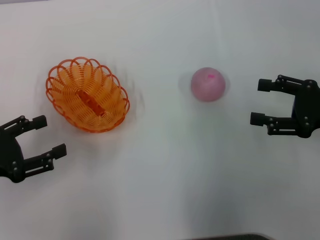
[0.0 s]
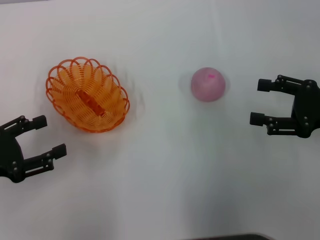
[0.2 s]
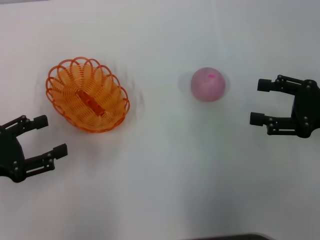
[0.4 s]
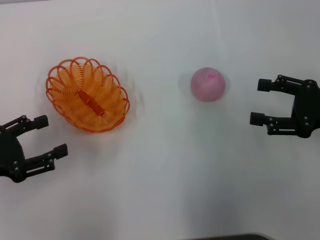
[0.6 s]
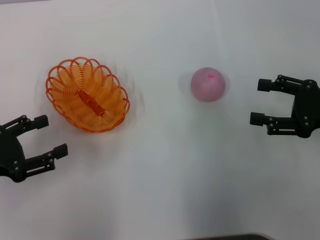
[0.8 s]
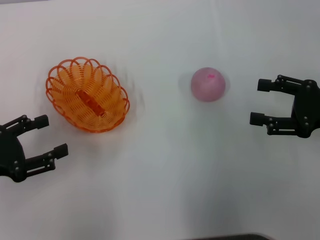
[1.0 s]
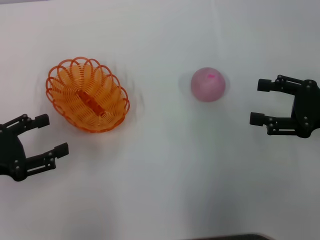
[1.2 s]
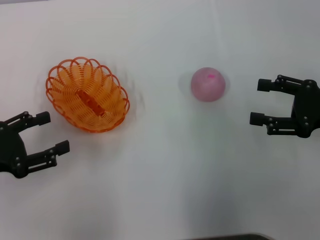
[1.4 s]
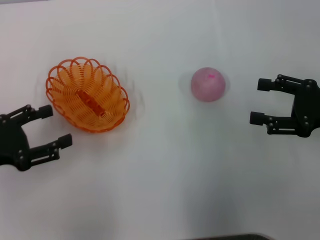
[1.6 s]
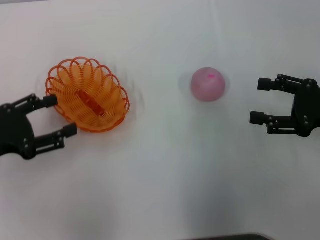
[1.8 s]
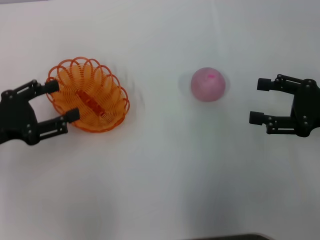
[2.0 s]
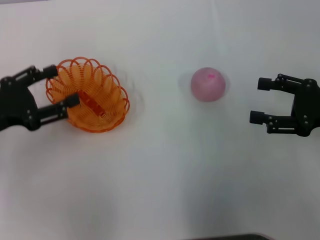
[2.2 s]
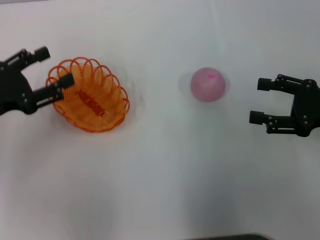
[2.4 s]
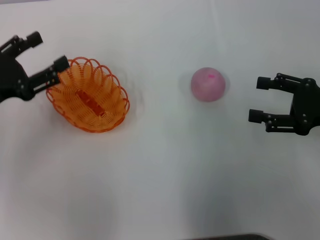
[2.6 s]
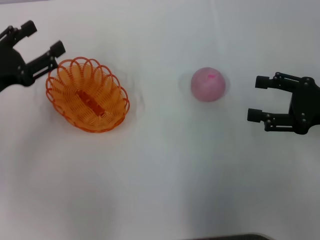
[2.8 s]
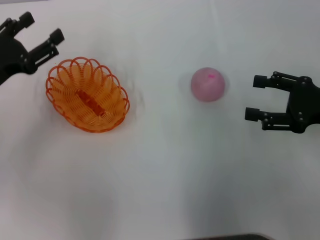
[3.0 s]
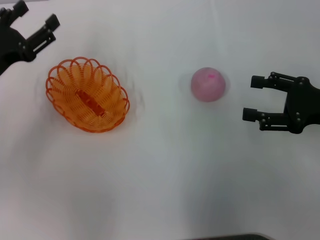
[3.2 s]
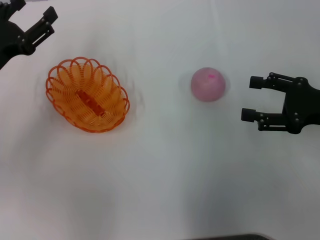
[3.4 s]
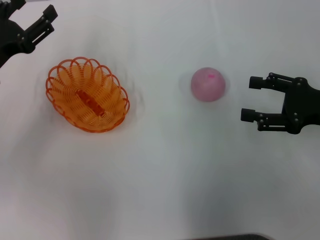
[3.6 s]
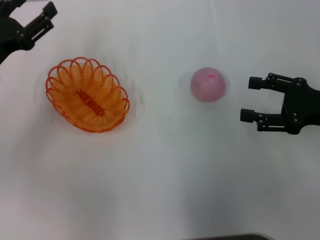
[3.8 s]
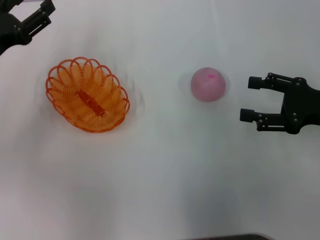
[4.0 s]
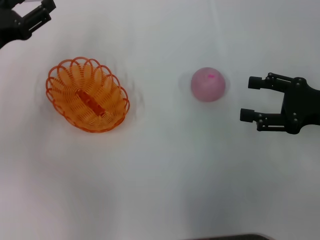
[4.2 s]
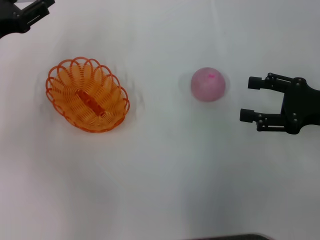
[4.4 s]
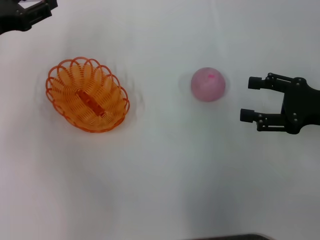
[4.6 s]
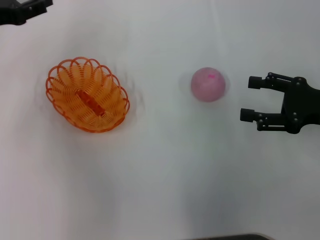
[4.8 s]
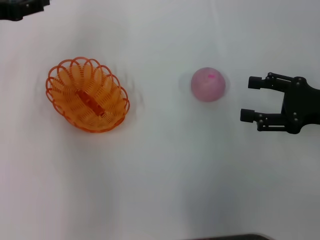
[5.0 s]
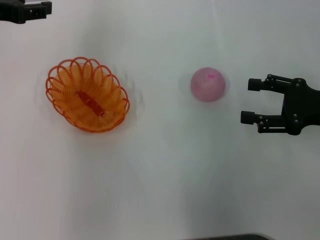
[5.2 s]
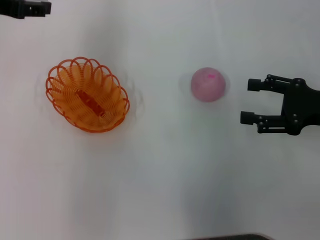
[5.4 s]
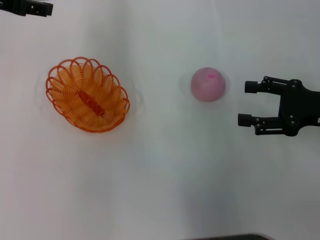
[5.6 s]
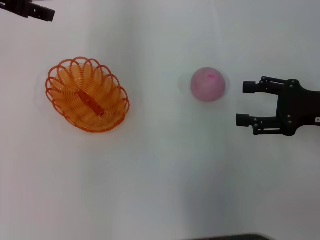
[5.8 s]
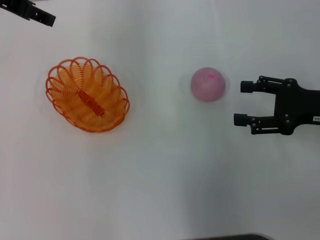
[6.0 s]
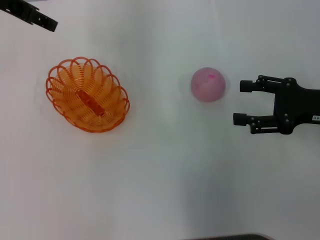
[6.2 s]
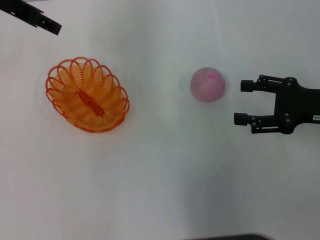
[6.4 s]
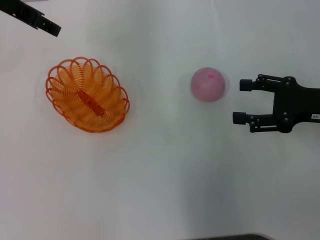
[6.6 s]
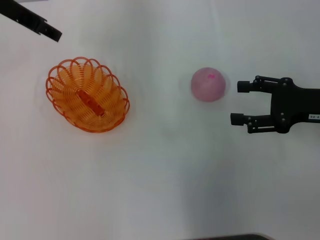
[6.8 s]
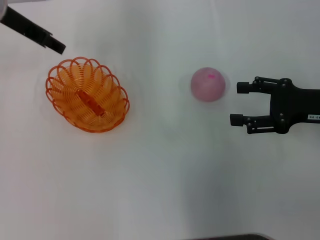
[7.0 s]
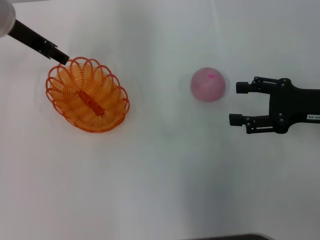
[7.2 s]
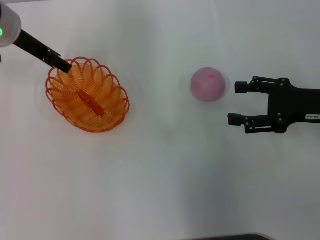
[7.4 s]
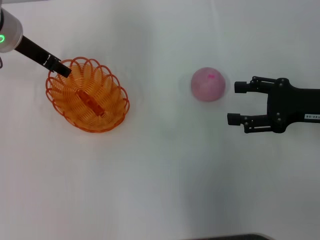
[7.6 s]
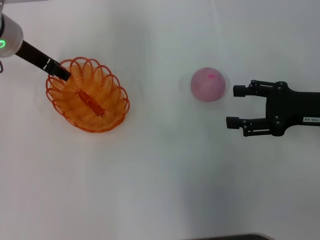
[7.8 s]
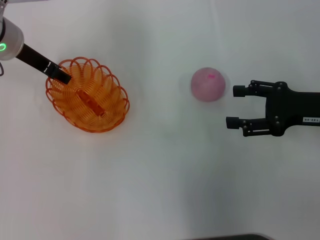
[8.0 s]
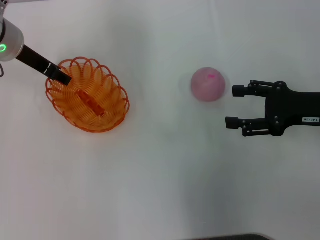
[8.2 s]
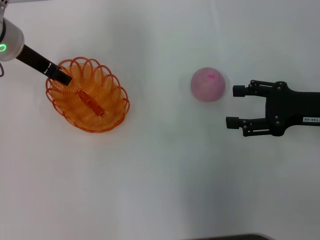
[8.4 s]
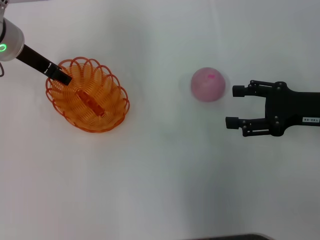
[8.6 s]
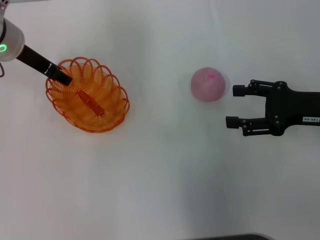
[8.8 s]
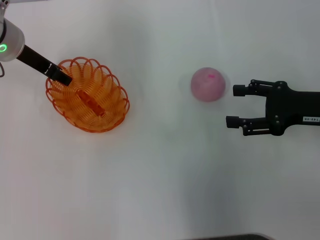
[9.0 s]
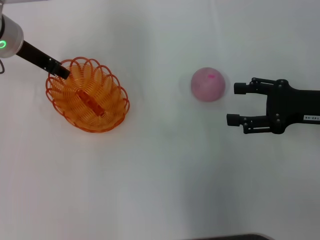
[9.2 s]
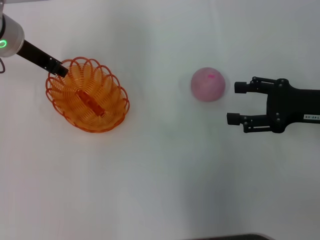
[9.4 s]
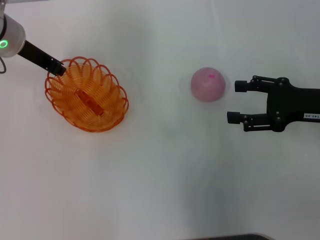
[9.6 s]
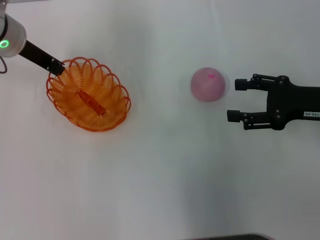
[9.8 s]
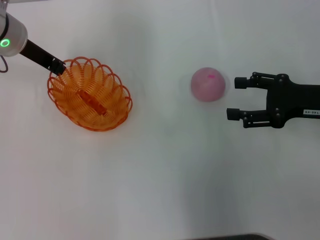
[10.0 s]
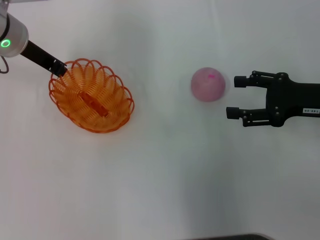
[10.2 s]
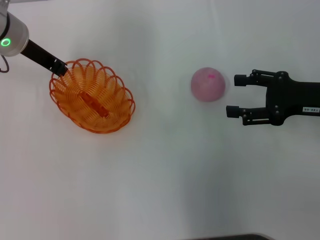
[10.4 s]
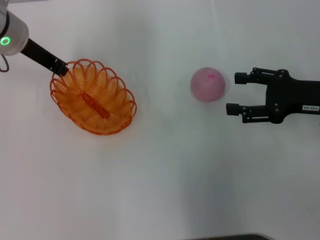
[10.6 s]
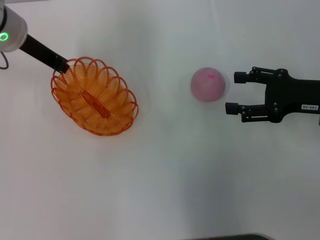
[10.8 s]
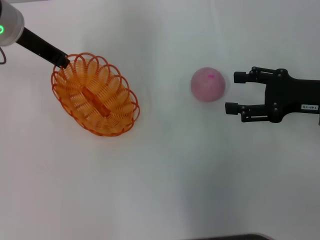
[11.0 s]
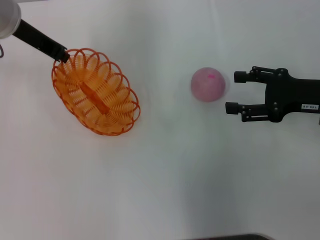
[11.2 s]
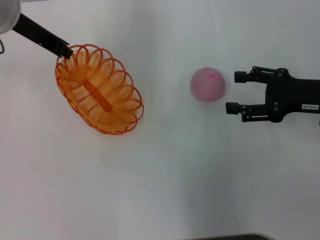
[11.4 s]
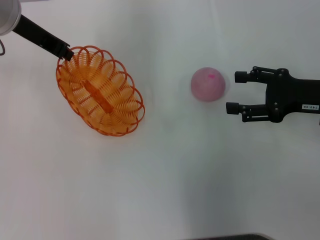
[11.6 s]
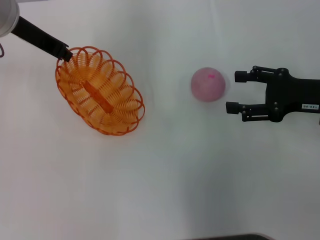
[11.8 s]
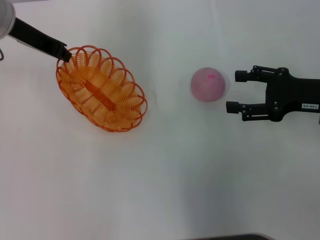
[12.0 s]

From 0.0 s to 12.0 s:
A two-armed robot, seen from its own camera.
Step, from 0.0 s to 11.8 s: Pick up the basket with the left gripper.
From 0.0 s to 1.6 s: There are only small adjustments of the grippers.
From 1.6 s to 3.0 s: The left gripper moves forward, approximately 5 cm.
From 3.0 s to 4.4 s: The left gripper ends up about 5 cm from where it was.
From 4.4 s to 6.0 s: The left gripper heads upward, forward and to the right, covering about 15 cm.
From 6.0 s to 7.6 s: The left gripper shifts about 10 cm downward.
From 7.6 s to 9.0 s: Neither gripper changes place.
From 9.0 s to 10.4 s: The left gripper closes.
From 10.4 s to 12.0 s: The grippers move only a little.

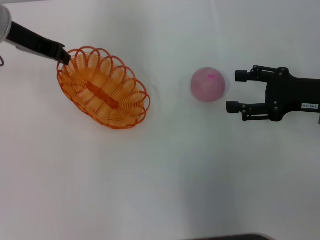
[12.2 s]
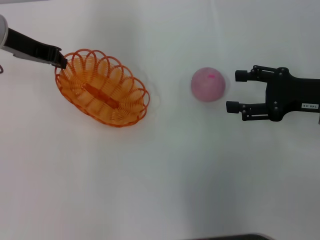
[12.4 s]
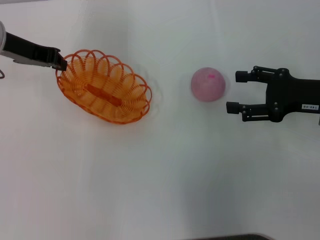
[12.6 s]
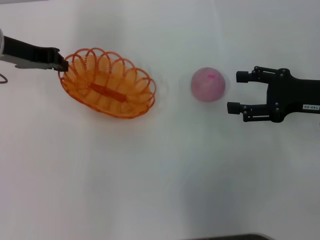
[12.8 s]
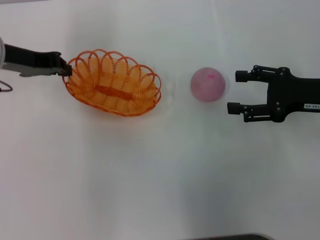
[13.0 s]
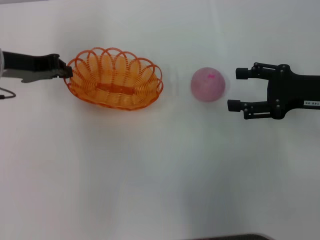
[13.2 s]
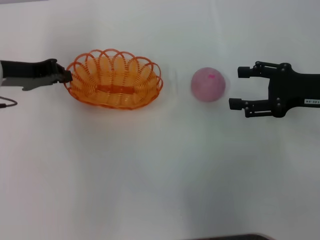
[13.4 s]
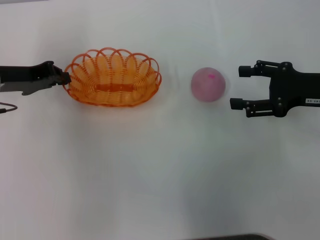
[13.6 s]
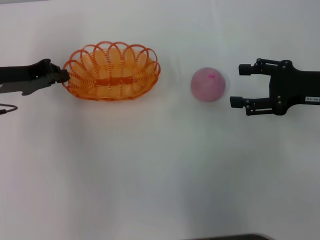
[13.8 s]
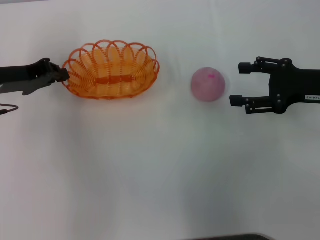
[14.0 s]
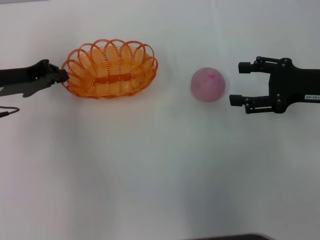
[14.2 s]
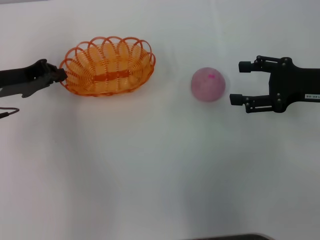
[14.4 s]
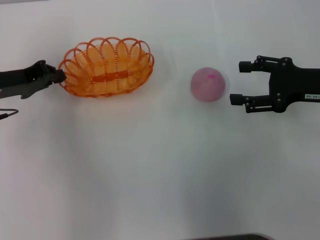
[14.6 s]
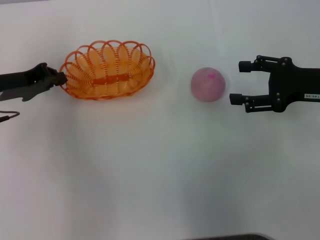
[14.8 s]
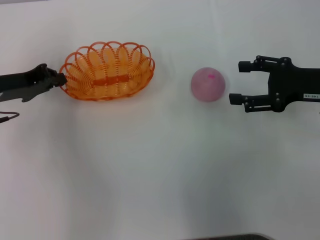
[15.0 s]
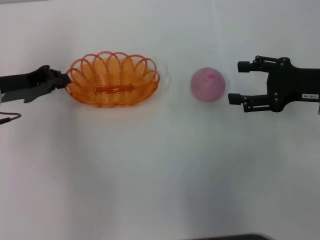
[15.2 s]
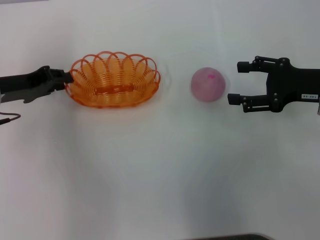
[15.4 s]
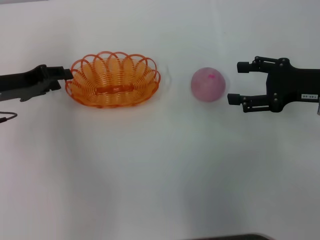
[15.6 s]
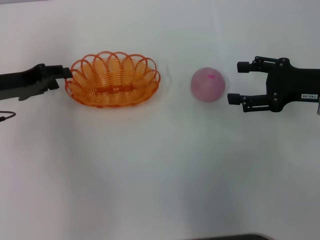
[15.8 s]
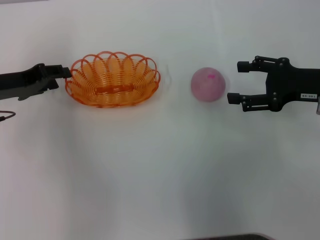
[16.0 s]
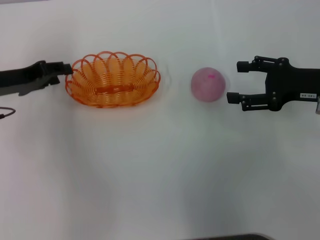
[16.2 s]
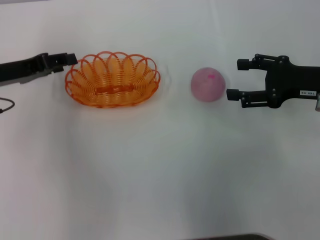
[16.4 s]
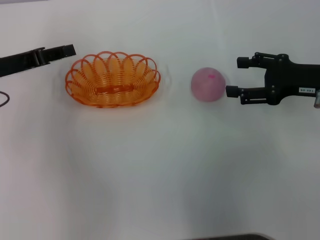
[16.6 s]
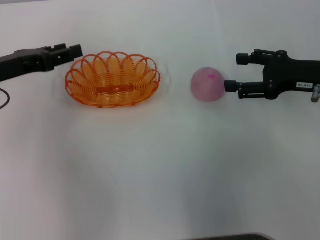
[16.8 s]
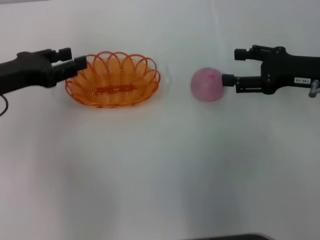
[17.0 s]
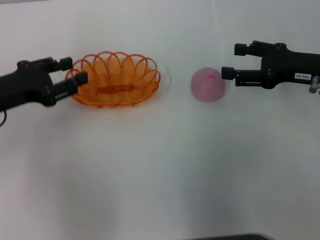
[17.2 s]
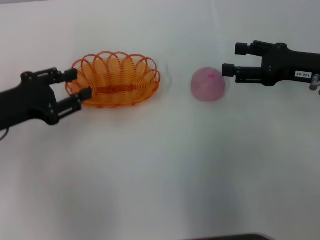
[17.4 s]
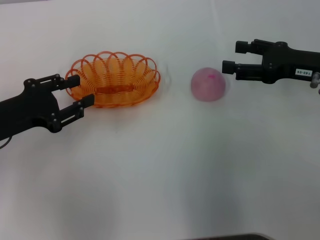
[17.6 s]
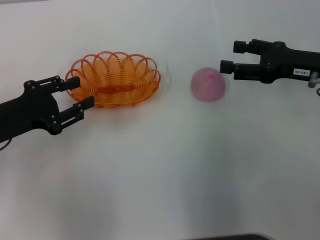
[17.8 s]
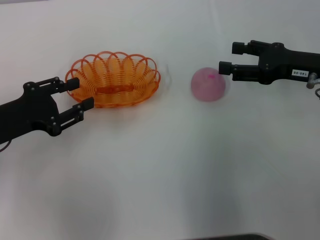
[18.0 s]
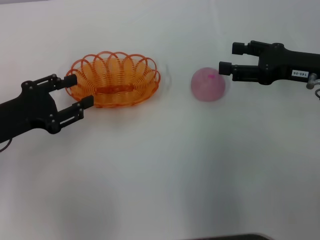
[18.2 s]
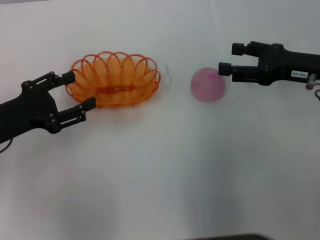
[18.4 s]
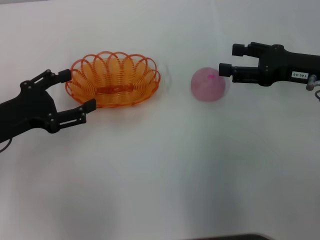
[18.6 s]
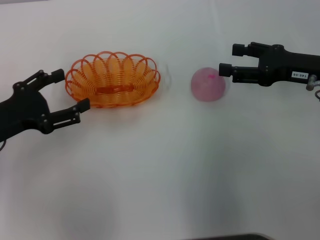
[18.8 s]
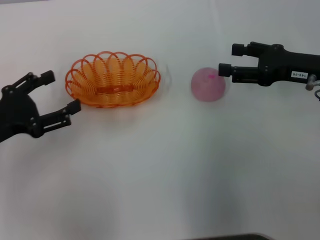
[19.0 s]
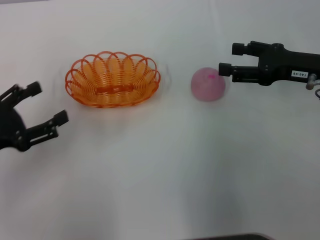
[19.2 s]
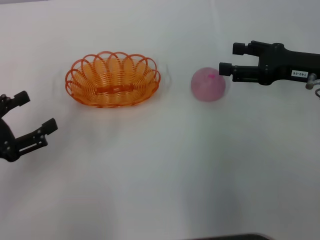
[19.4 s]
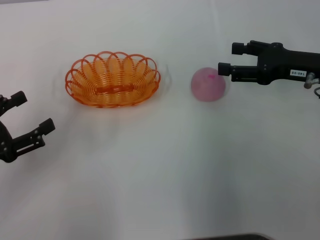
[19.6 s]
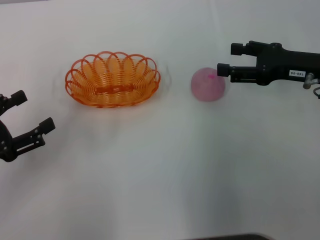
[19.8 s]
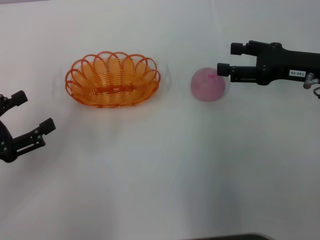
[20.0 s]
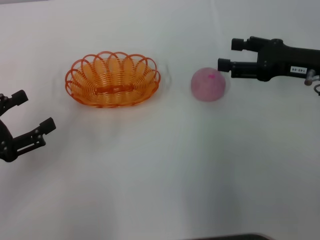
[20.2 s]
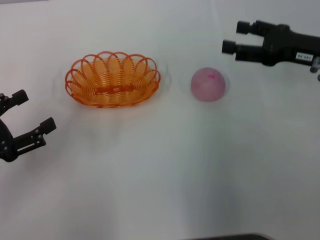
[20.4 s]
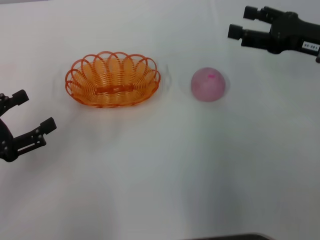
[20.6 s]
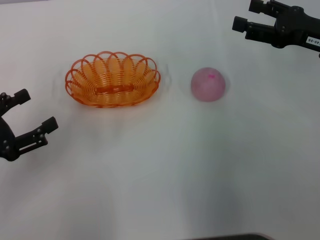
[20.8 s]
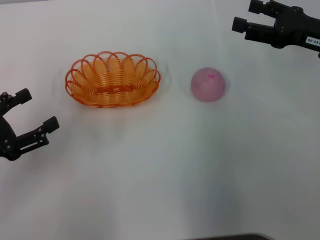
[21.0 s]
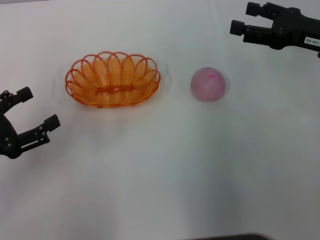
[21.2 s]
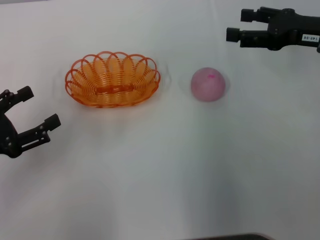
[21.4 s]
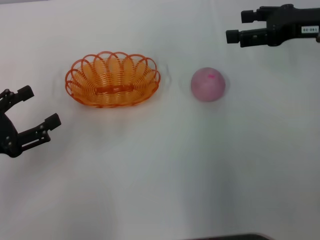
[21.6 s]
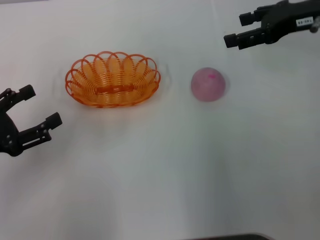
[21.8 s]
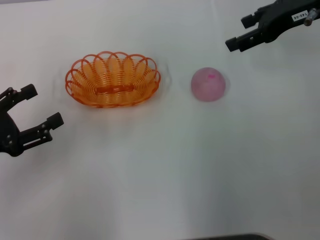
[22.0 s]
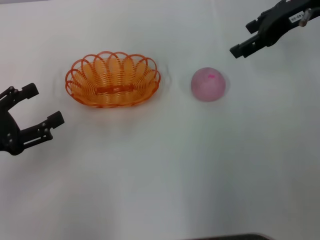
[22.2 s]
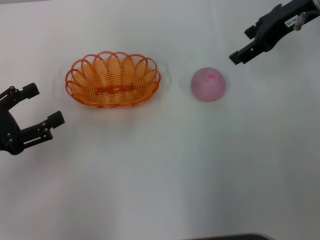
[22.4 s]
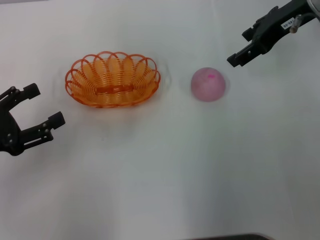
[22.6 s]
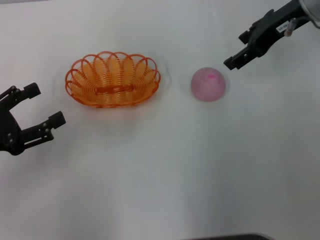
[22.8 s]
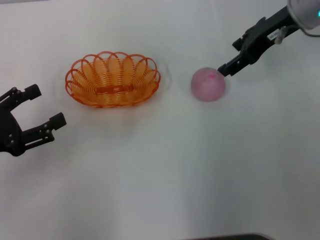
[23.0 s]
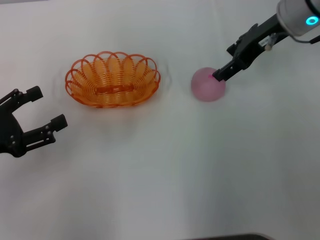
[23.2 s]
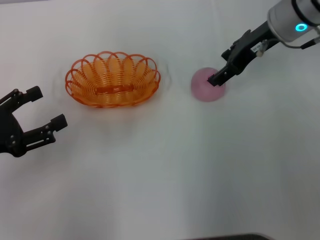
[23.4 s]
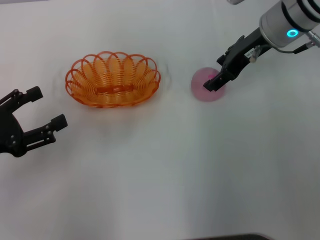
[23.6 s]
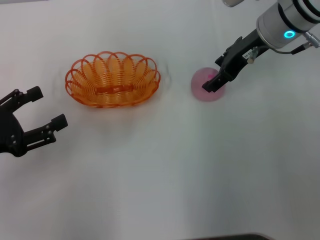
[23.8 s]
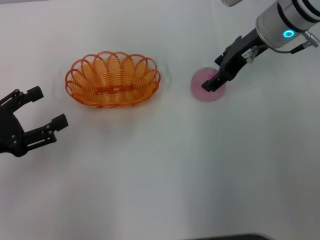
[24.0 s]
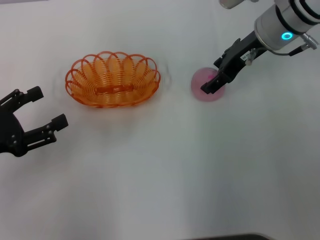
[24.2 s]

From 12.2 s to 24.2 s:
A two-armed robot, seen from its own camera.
Step, from 12.2 s to 19.0 s: Place the basket in the center of view with the left gripper.
From 12.2 s to 13.8 s: The left gripper heads downward and backward, covering roughly 10 cm.
From 13.8 s to 15.2 s: There are only small adjustments of the grippers.
From 15.2 s to 16.6 s: The left gripper opens its fingers.
From 16.6 s to 18.2 s: The left gripper travels backward by some 5 cm.
From 18.2 s to 19.8 s: The left gripper shifts some 5 cm backward, and opens up.
From 19.8 s to 21.2 s: The grippers make only small movements.
From 21.2 s to 22.6 s: The right gripper heads upward, to the left and forward, covering approximately 15 cm.
From 22.6 s to 24.2 s: The right gripper travels downward by approximately 5 cm.
